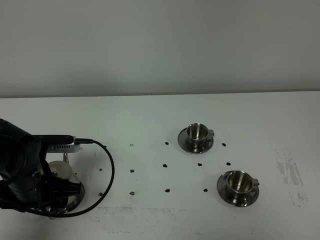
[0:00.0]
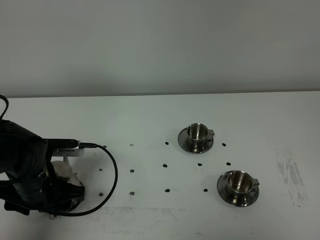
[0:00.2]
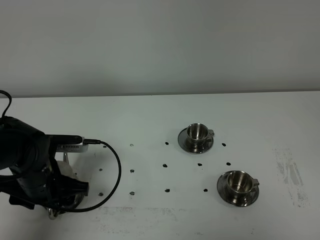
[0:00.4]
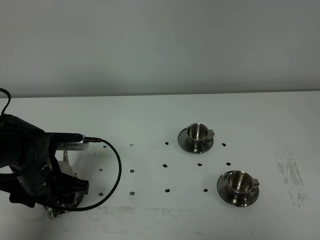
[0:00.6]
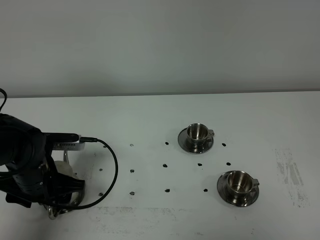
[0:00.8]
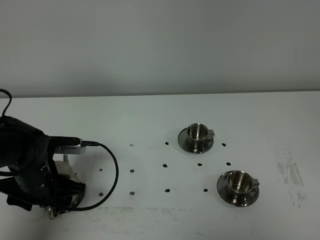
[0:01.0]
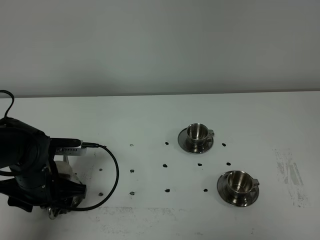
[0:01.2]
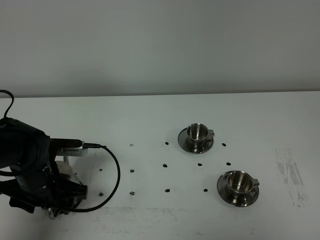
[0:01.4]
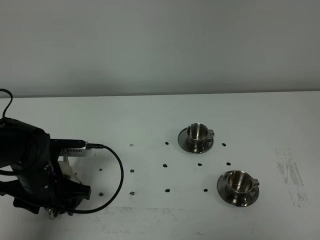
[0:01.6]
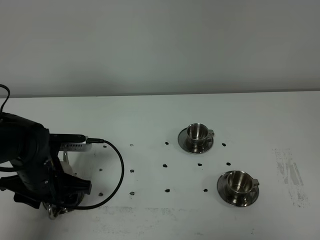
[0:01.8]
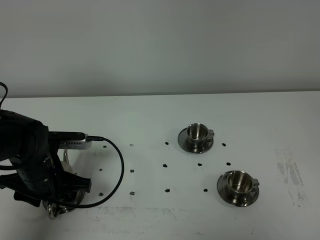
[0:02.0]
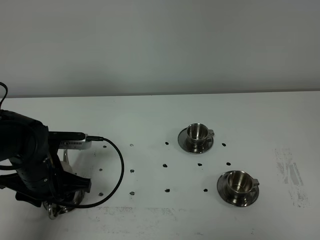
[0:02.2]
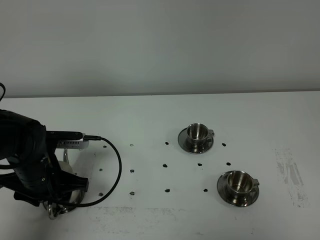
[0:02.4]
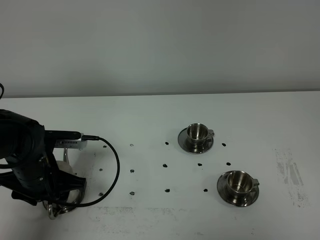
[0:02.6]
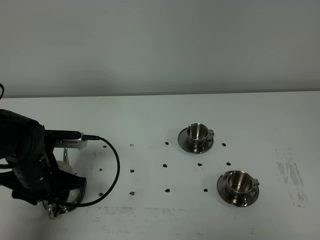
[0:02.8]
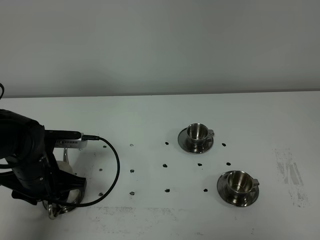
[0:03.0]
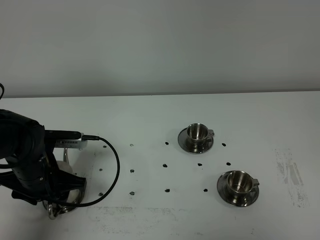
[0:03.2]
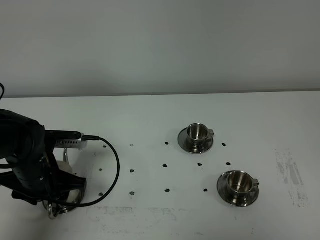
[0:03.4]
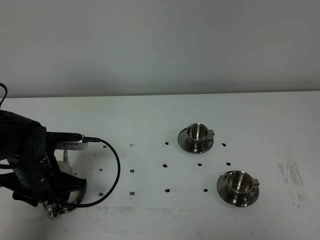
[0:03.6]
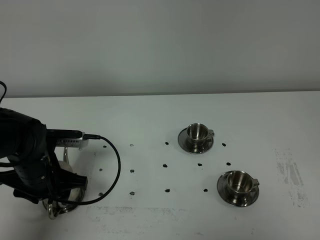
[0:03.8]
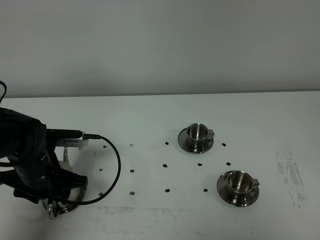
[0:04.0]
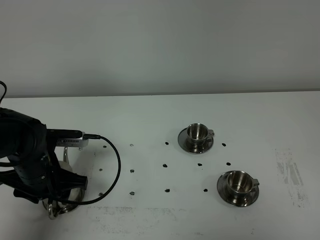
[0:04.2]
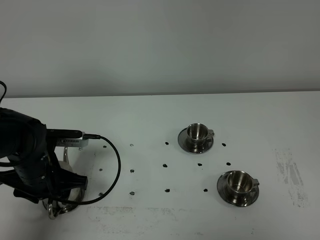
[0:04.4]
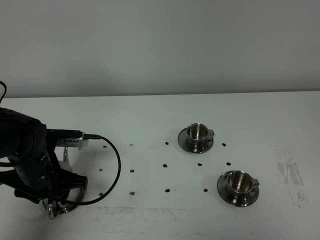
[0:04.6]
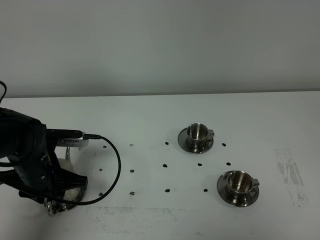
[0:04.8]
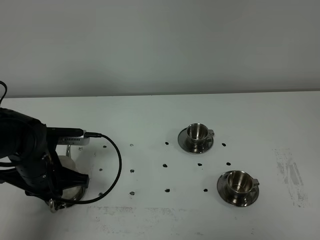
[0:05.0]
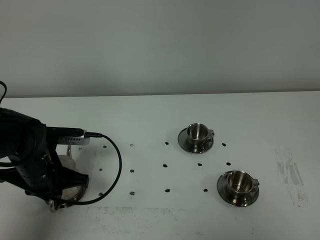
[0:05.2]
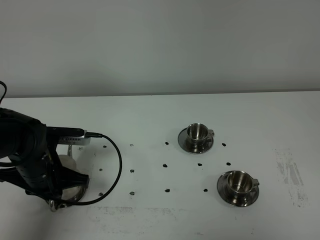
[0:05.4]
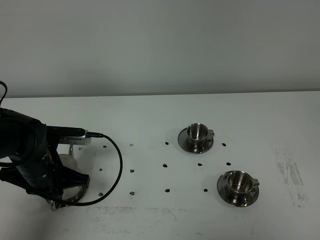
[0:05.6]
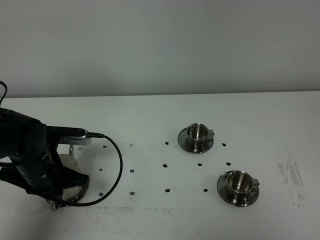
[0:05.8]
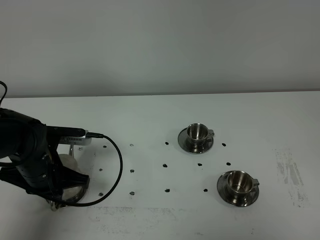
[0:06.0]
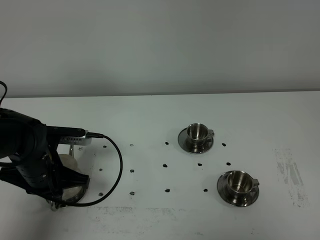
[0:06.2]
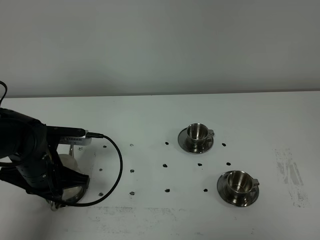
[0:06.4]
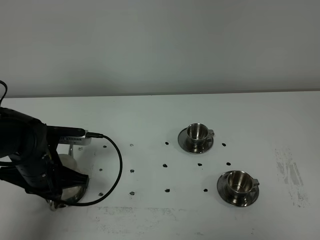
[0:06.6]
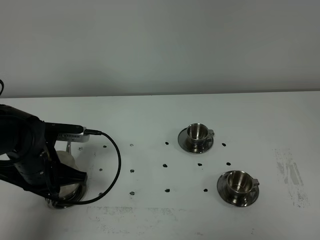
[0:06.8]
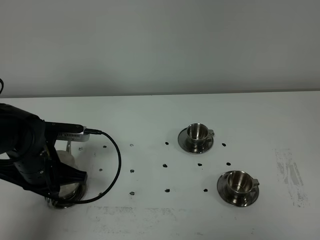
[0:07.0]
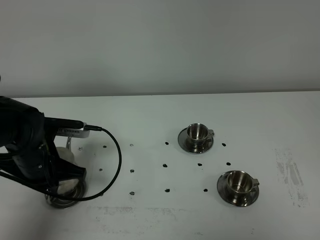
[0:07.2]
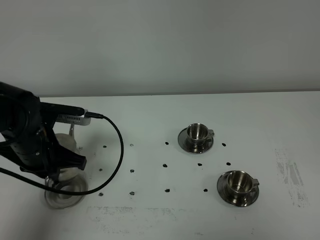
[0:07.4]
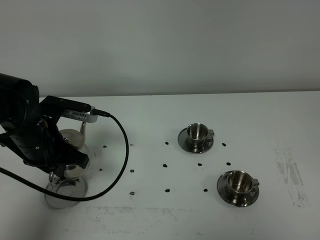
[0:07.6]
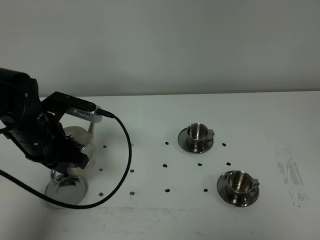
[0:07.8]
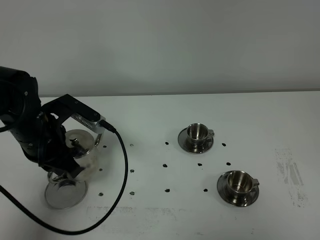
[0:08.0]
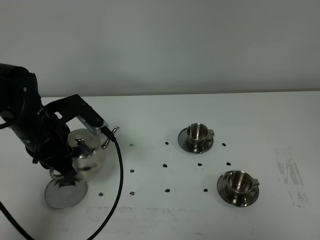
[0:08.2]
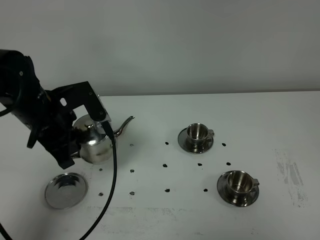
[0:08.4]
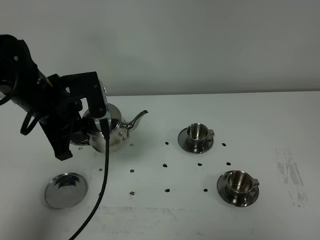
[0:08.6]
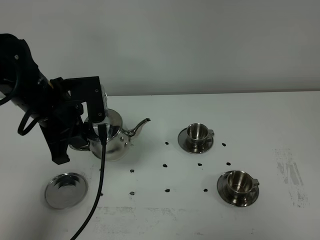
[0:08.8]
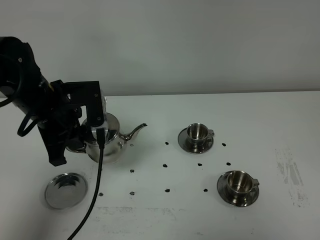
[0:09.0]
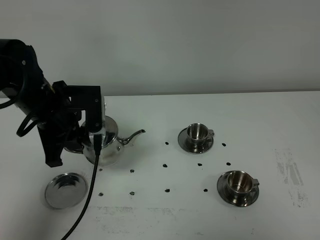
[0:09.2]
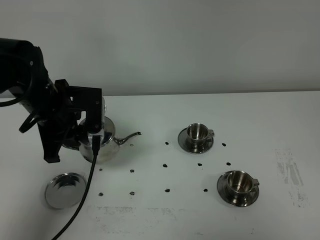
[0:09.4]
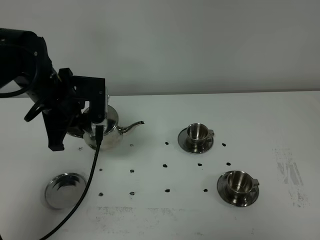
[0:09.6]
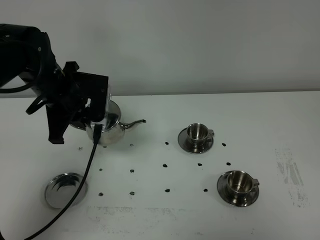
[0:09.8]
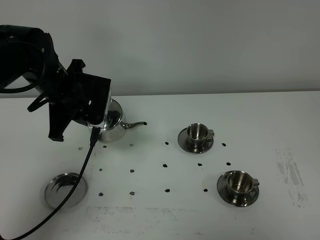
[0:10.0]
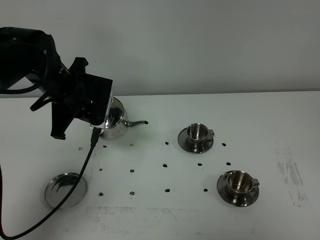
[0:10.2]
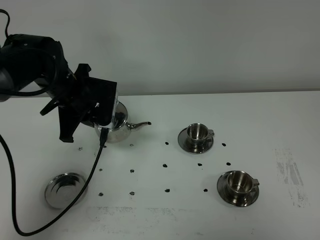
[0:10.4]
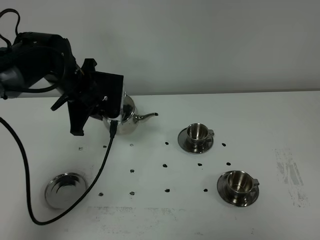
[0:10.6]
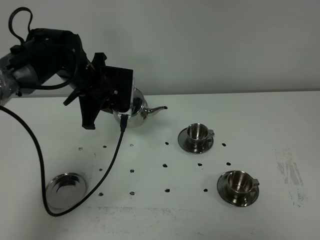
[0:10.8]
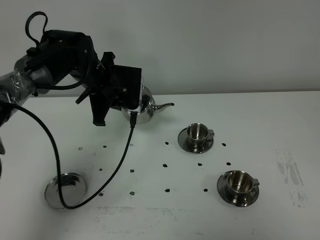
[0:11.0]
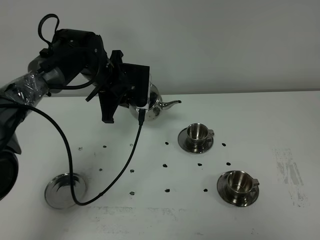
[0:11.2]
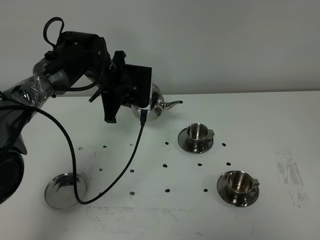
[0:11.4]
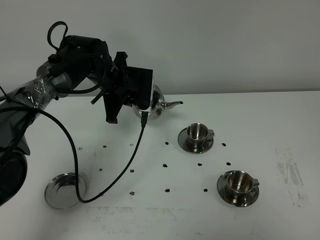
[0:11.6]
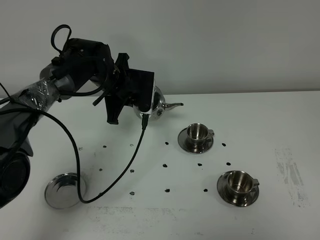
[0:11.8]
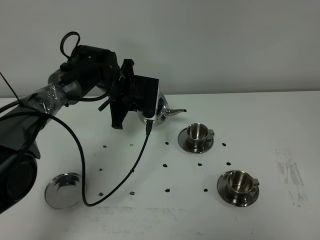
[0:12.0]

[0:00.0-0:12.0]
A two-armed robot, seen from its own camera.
Task of the whole recording: grasp the stainless steel teapot and pour the tea into the two stainless steel teacups one by one, put the stainless steel teapot back in its original place.
Step, 0:00.0 to 0:07.4: Pick up the teapot with the left gripper.
0:00.0 to 0:03.0: The grippers move only a little.
0:03.0 to 0:04.4: Neither gripper changes place.
0:04.4 to 0:06.0: The left gripper closes its fingers.
0:06.0 to 0:07.6: The left gripper travels upward by about 5 cm.
0:07.6 to 0:09.0: The left gripper ends up roughly 5 cm from where it was.
0:09.0 to 0:10.4: The left gripper is displaced forward by approximately 5 cm.
0:10.4 to 0:12.0: The left gripper moves forward, to the right and downward, approximately 10 cm.

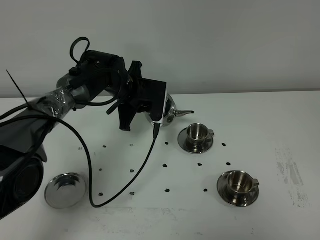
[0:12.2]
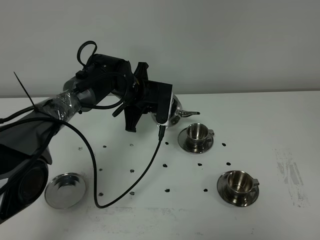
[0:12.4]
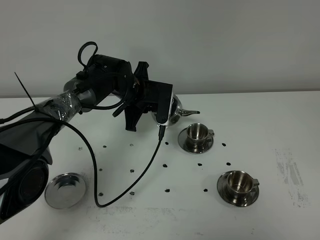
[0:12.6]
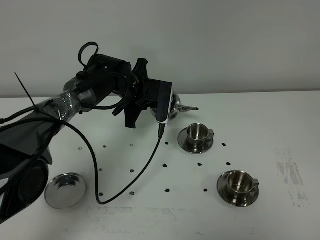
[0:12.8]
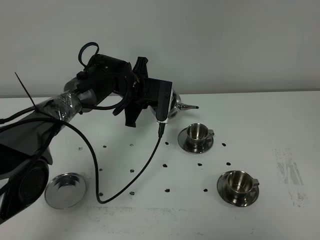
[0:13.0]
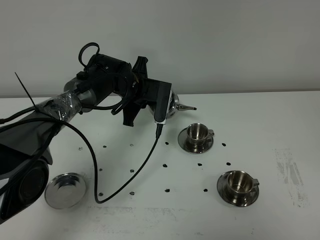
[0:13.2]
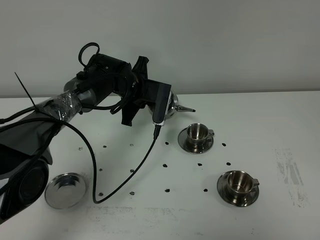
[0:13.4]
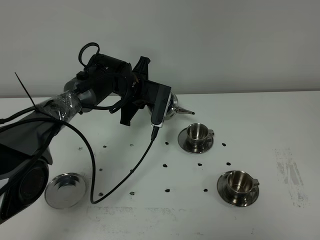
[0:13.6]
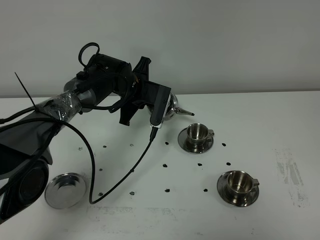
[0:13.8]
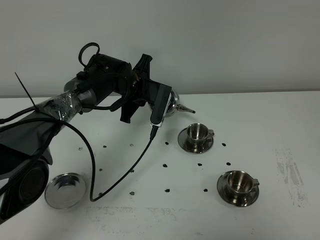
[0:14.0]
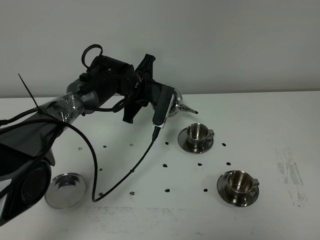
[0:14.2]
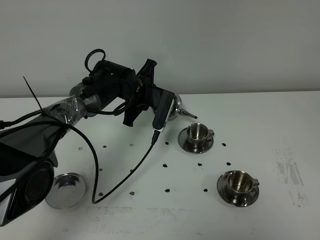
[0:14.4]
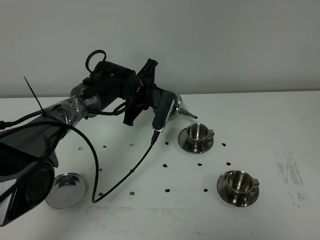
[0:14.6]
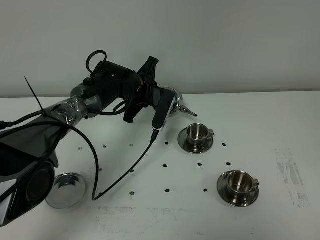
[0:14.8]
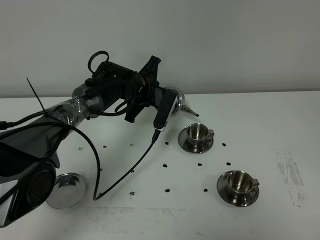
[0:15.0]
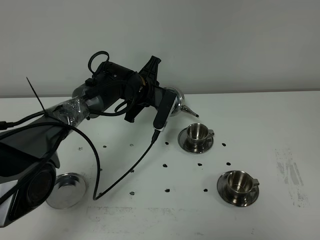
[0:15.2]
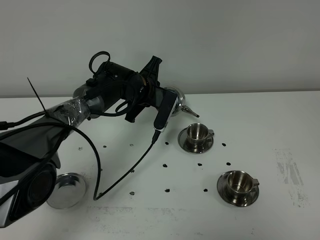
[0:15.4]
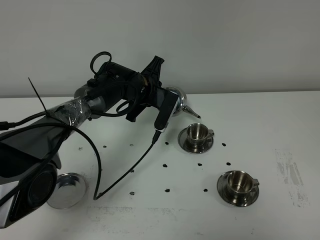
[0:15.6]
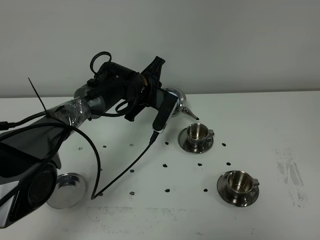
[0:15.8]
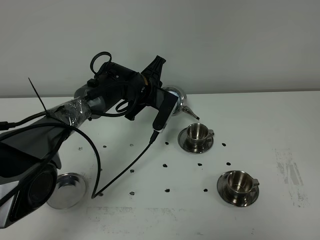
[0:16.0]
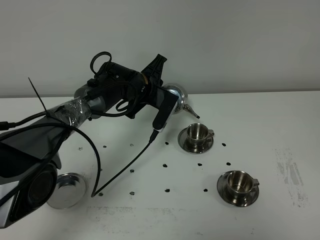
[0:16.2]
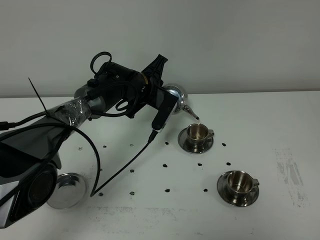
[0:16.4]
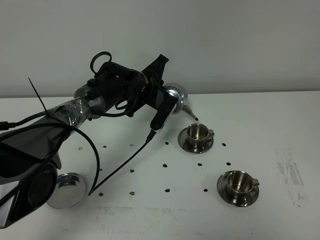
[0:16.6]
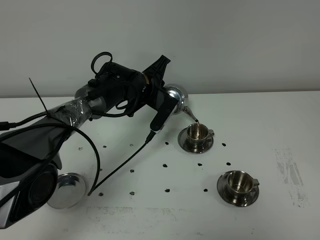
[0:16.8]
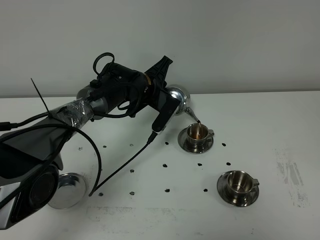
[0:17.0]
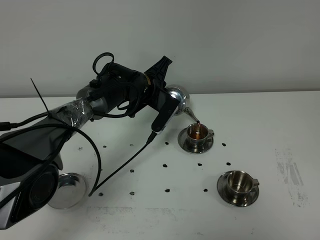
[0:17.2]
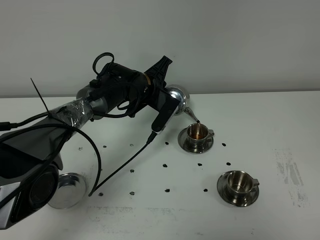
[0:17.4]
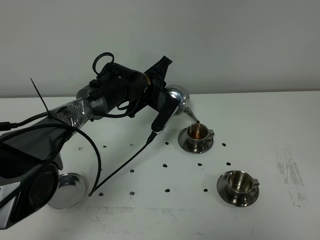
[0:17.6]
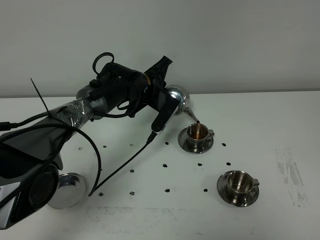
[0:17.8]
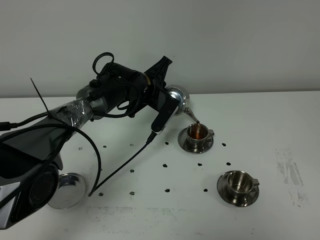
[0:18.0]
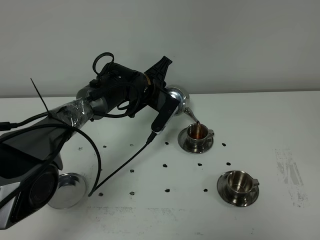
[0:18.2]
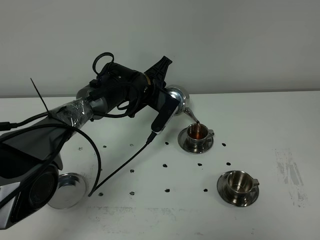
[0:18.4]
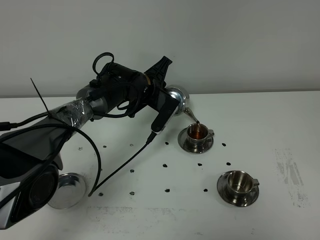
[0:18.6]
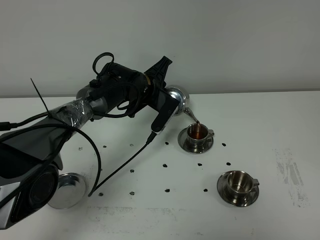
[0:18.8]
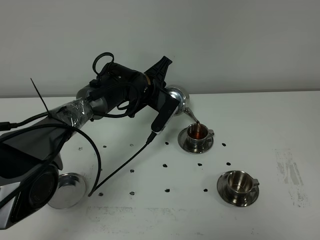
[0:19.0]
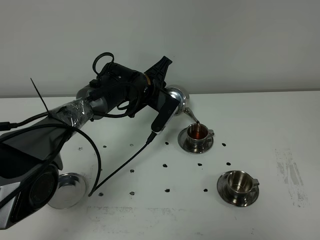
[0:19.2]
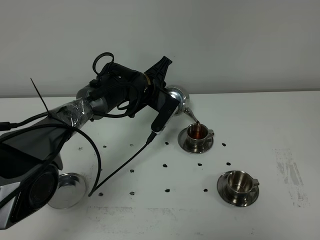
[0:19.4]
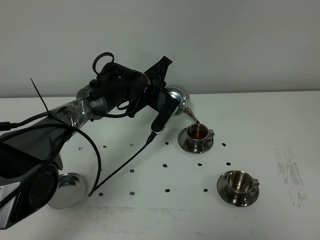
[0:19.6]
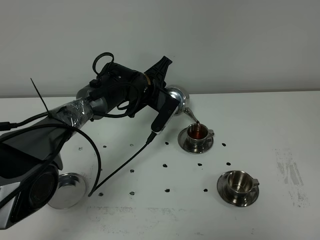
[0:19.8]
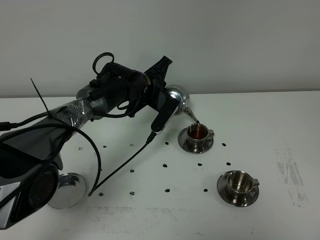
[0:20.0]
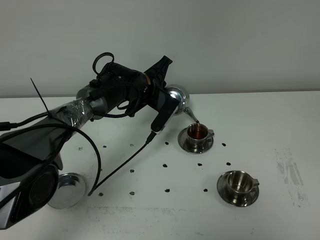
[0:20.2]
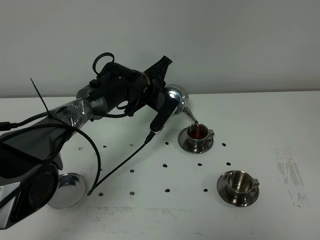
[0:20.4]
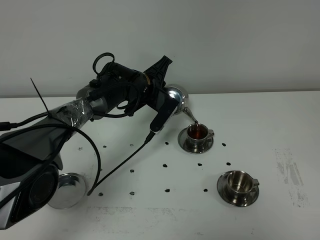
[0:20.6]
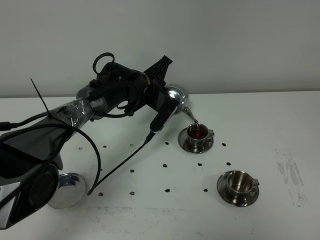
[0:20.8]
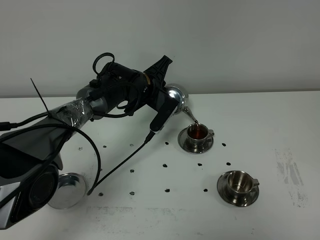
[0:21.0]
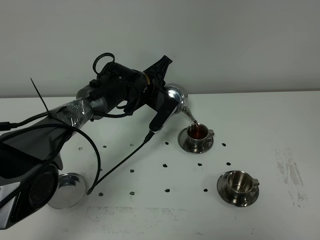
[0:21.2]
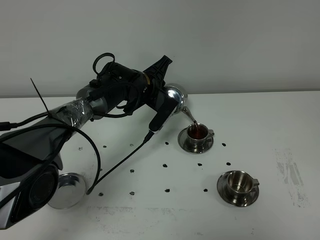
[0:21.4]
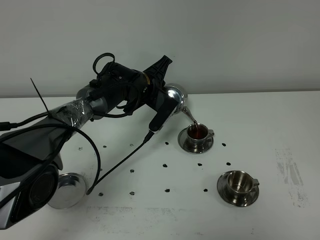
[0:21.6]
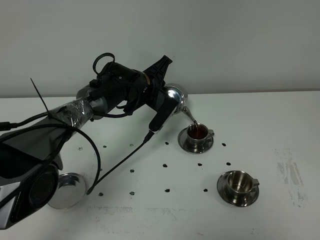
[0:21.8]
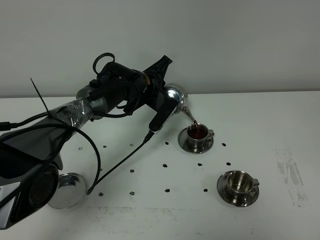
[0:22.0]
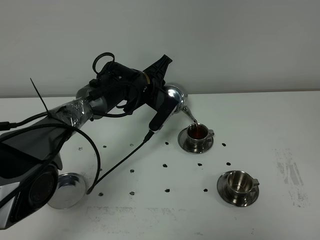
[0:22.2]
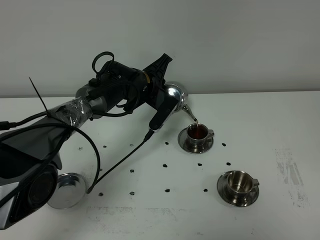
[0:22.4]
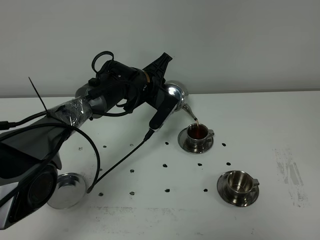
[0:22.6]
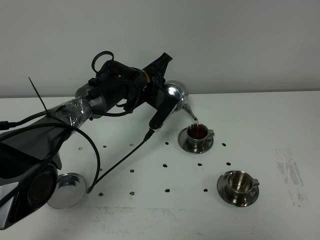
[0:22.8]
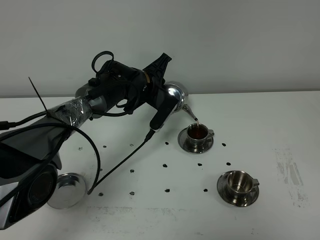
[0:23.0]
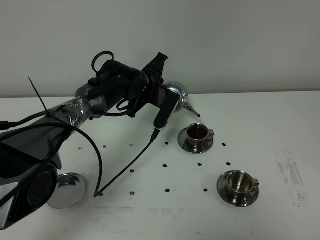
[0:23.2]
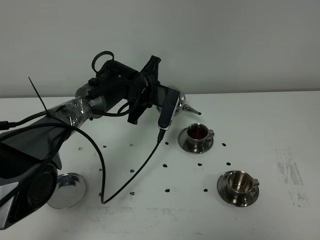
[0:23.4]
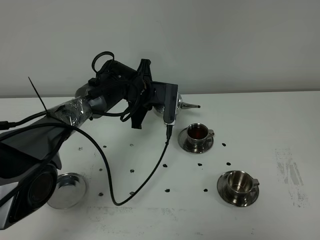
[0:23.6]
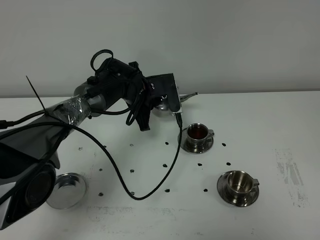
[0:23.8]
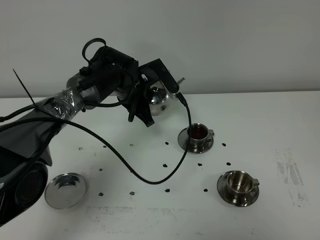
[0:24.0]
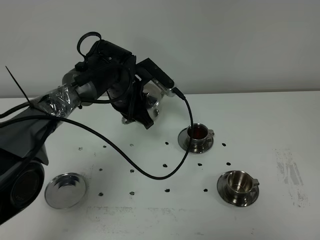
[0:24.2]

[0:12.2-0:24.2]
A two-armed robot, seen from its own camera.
Task of the whole recording: grasp the stainless steel teapot and pour the tea into the two stainless steel teacups one by one, put the stainless steel teapot back in its original place.
0:12.2 to 0:13.8: The grippers stay close to where they were, moving slightly.
0:13.8 to 0:15.2: There are only small adjustments of the grippers.
0:15.2 to 0:16.6: The grippers move only a little.
0:16.6 to 0:22.6: Neither gripper changes place.
0:22.6 to 0:24.2: The left gripper changes place by some 5 cm.
